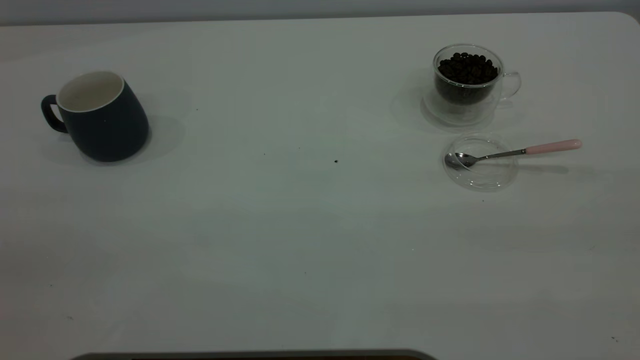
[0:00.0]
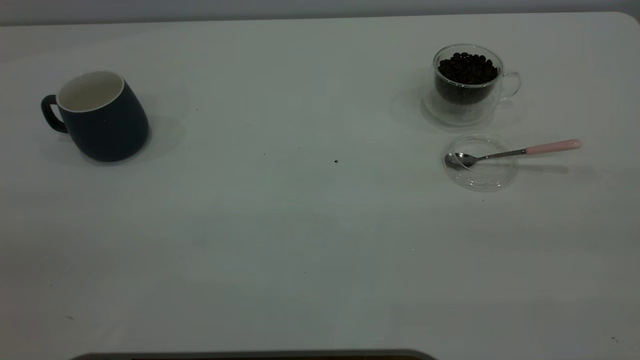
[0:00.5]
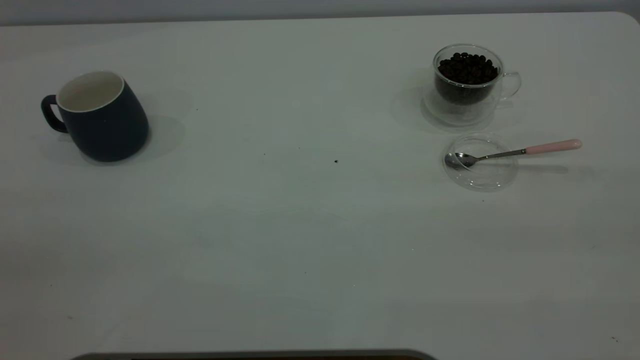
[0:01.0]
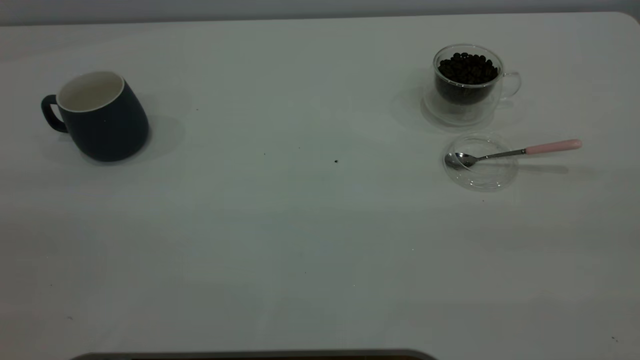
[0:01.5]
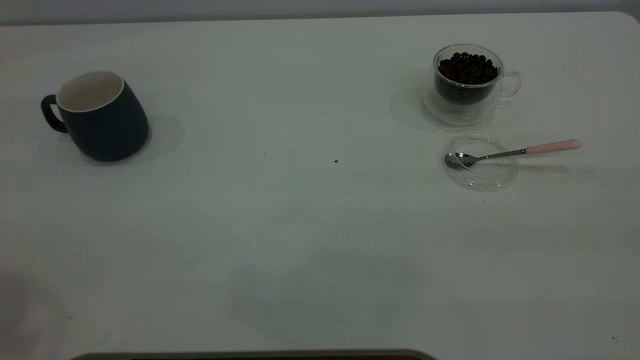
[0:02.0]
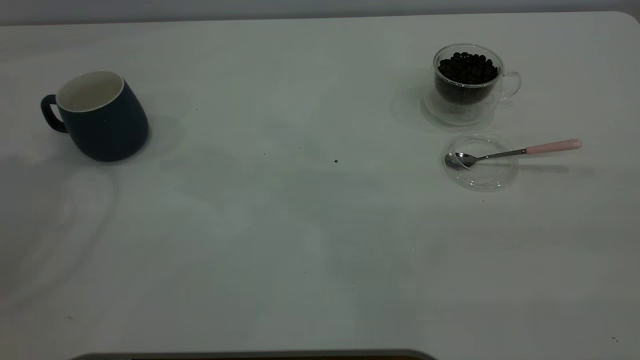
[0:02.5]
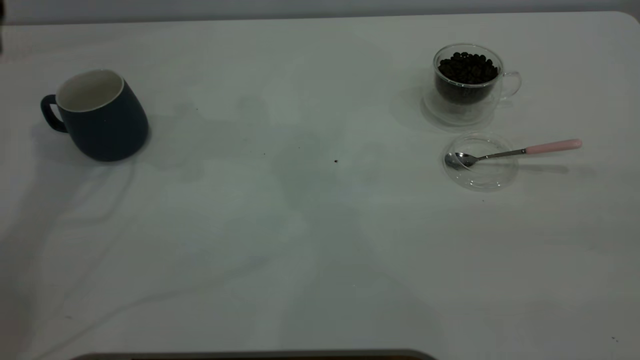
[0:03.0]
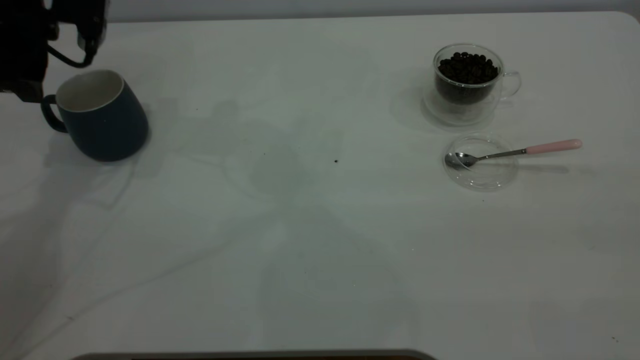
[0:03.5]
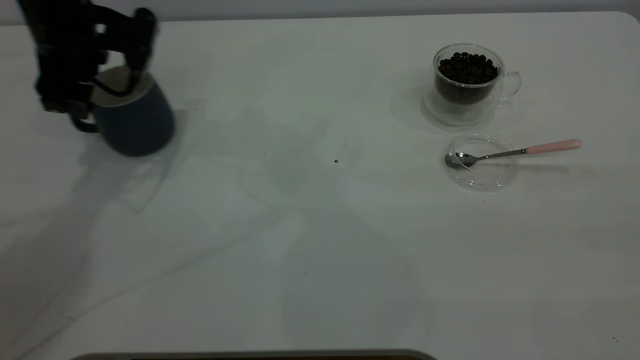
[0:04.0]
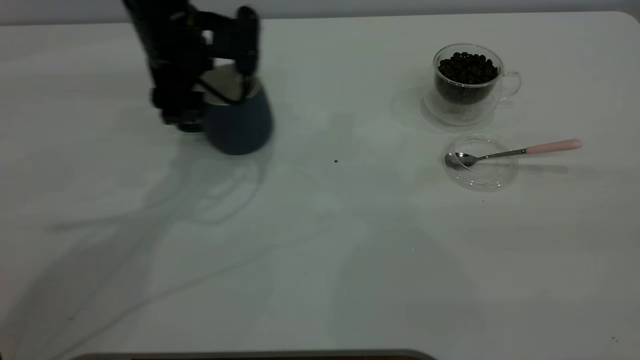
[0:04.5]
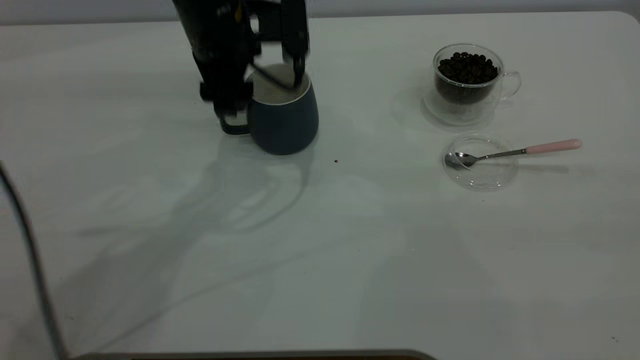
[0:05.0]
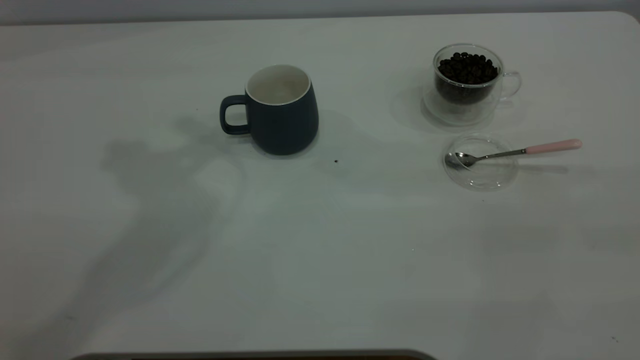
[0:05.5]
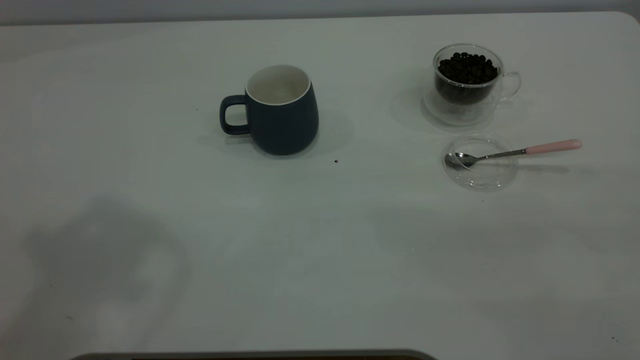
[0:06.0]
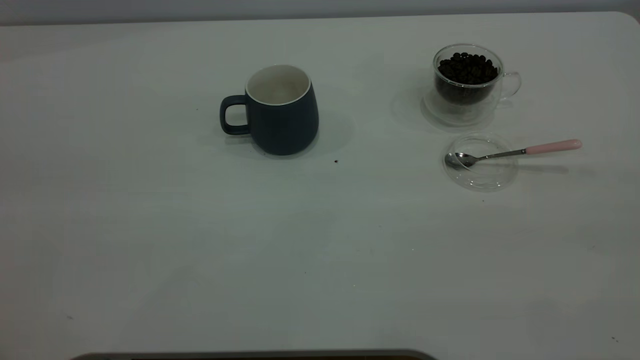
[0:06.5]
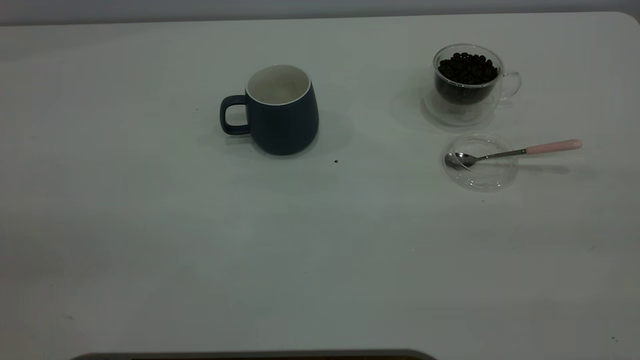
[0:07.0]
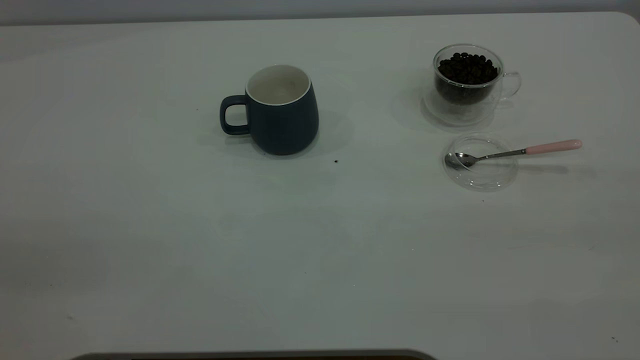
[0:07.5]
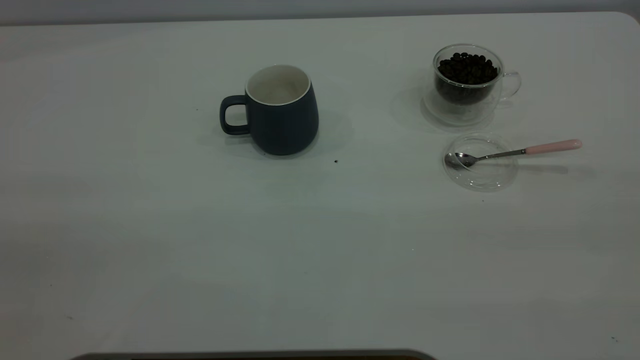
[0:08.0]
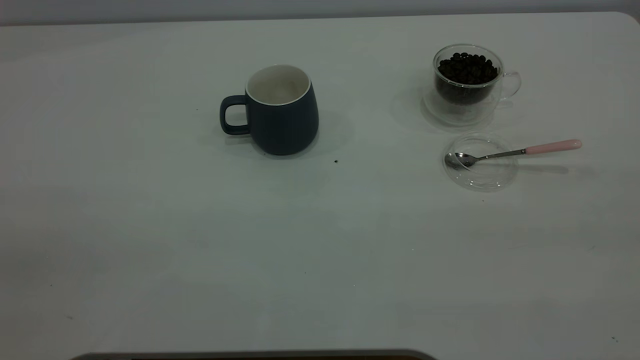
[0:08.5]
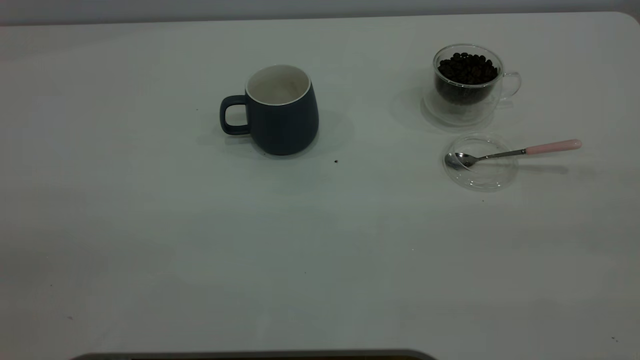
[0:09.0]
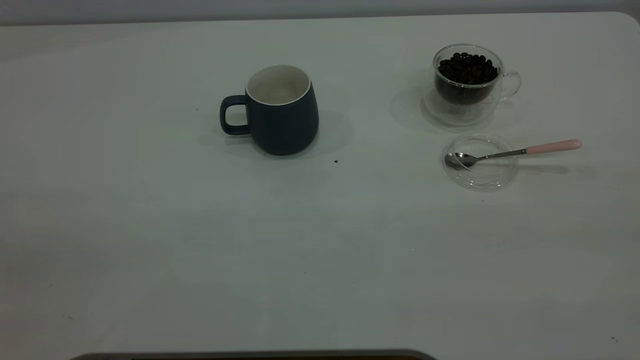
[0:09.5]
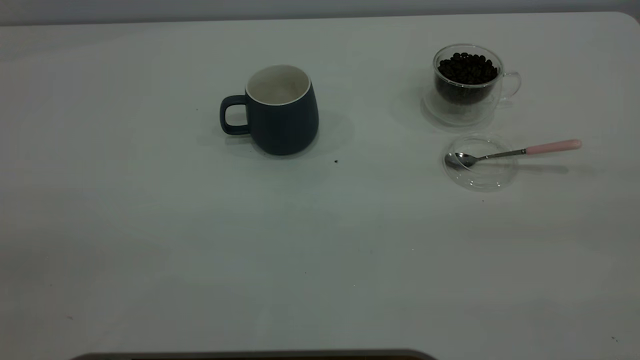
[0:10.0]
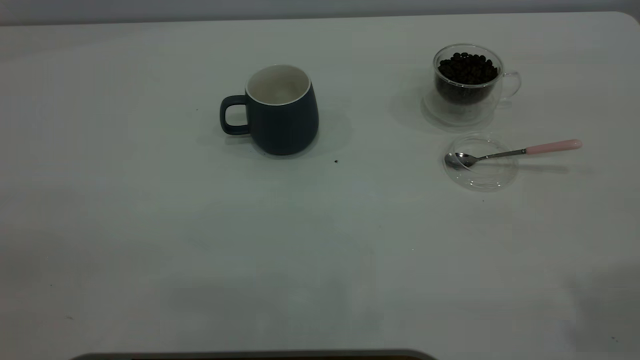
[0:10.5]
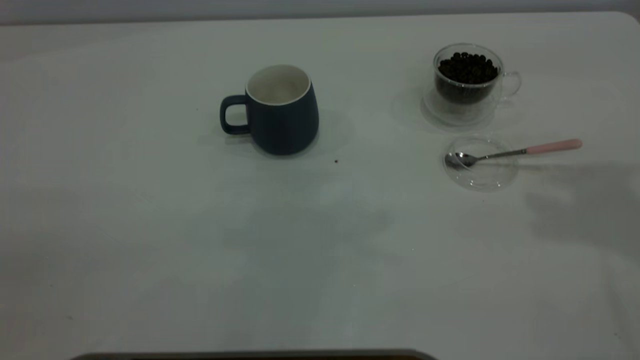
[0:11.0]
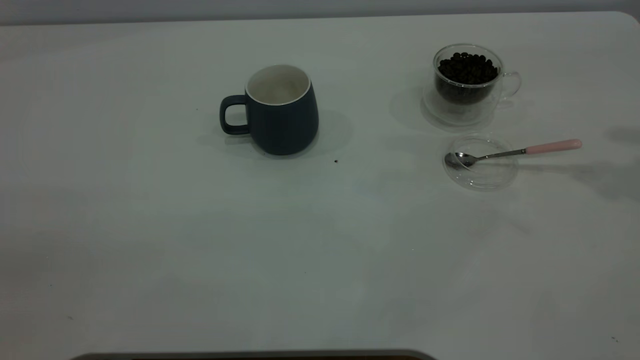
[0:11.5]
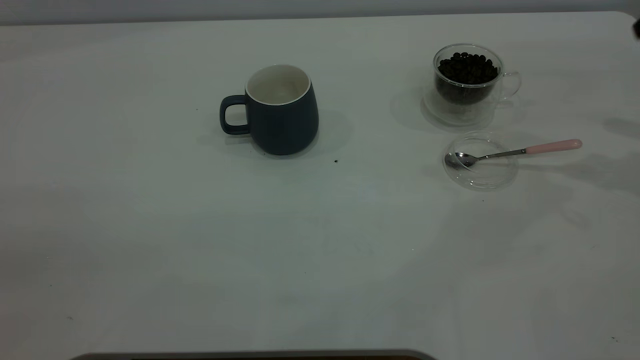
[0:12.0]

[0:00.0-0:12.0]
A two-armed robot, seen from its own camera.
Task of the whole recording: the left gripper place the grey cup in the center of the table, the right gripper take the pink spoon from the cup lid and scoop out the coffee beans from the coffee cup and put them into the grey cup, the right gripper put the spoon back into the cup lid.
Step, 0:00.0 to 0:05.0: Move the cup to the center of view.
0:02.0 to 0:04.0: The left gripper shifts about 40 cm downward and forward.
0:04.0 to 0:06.0: The left gripper goes some 40 cm upward and backward.

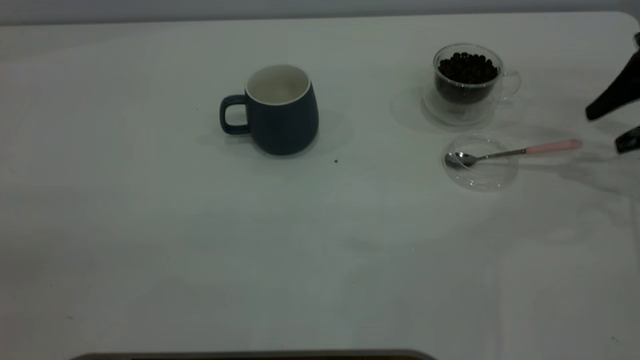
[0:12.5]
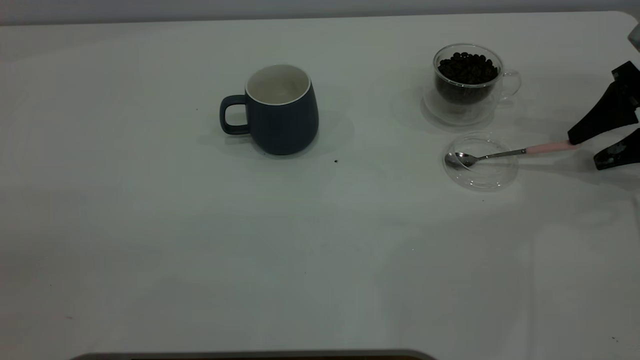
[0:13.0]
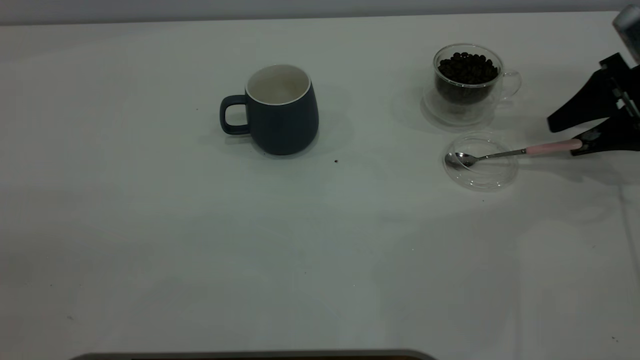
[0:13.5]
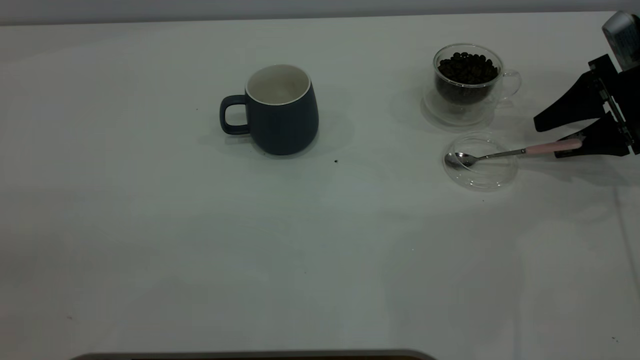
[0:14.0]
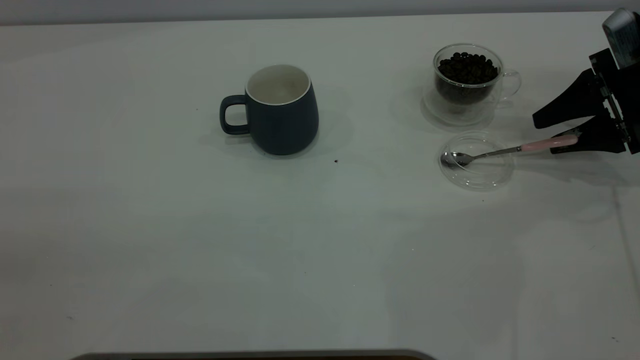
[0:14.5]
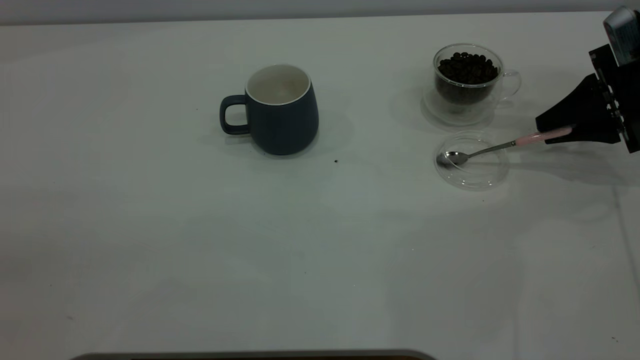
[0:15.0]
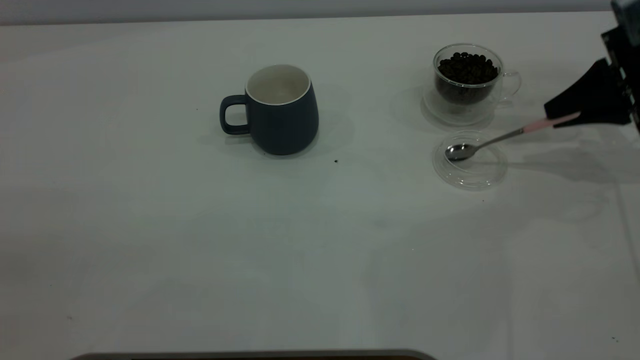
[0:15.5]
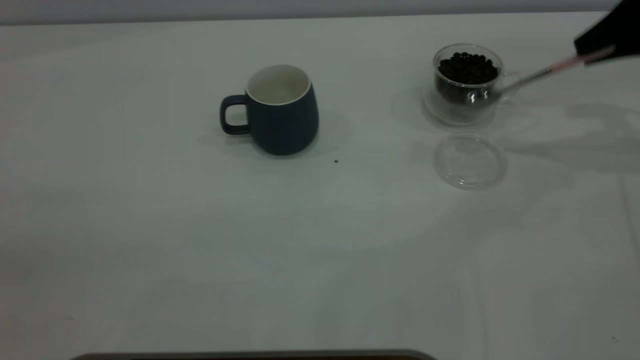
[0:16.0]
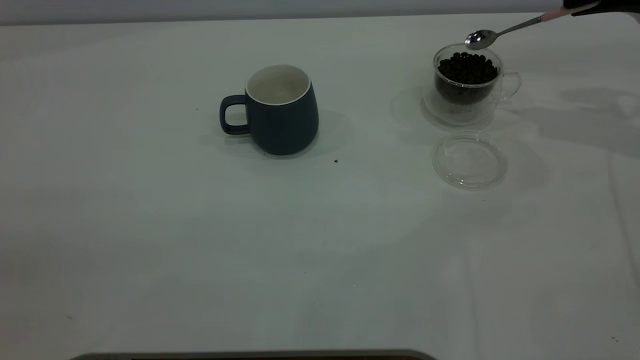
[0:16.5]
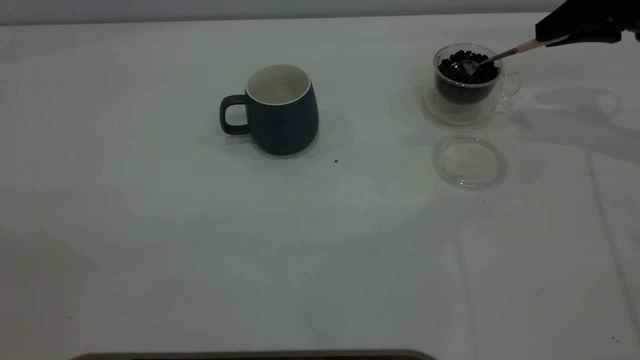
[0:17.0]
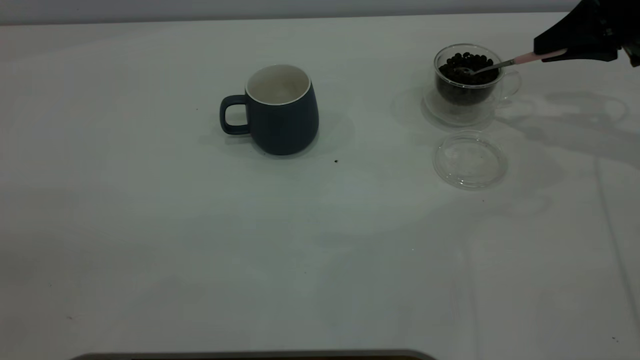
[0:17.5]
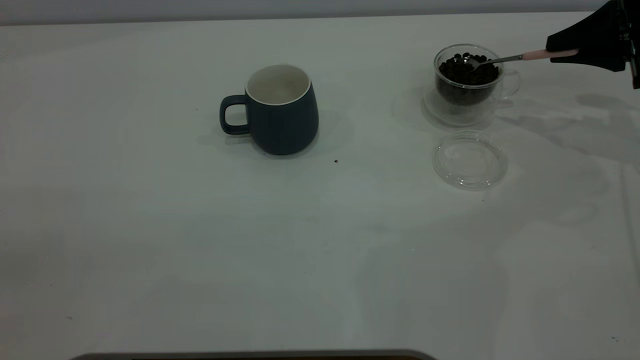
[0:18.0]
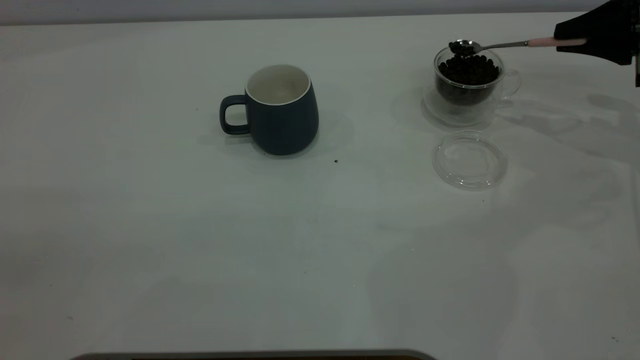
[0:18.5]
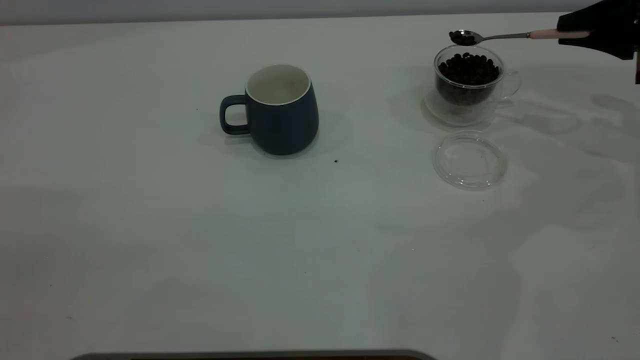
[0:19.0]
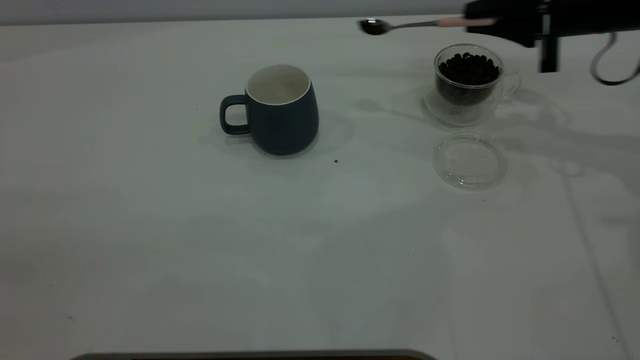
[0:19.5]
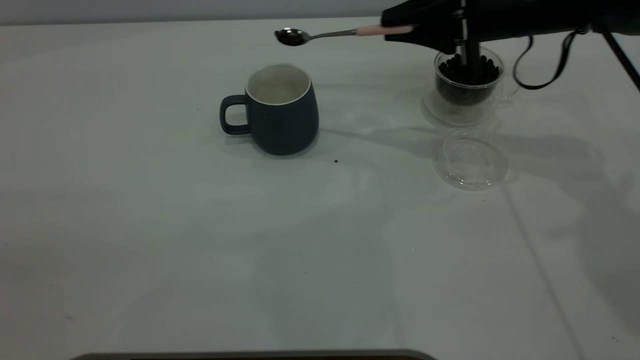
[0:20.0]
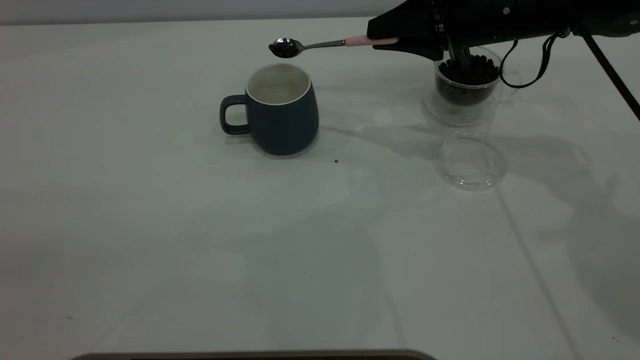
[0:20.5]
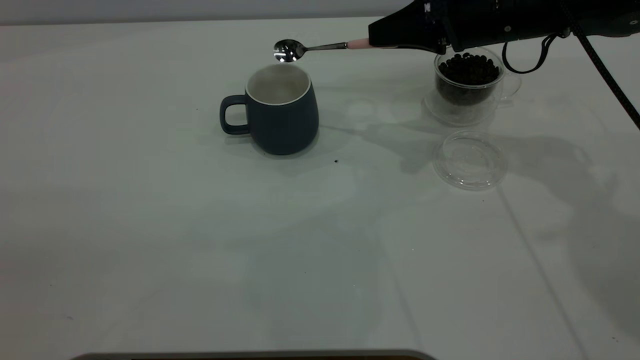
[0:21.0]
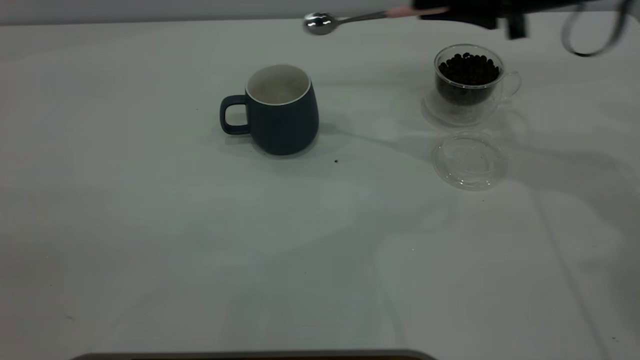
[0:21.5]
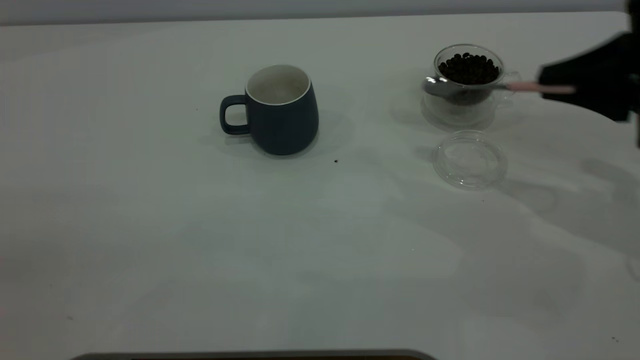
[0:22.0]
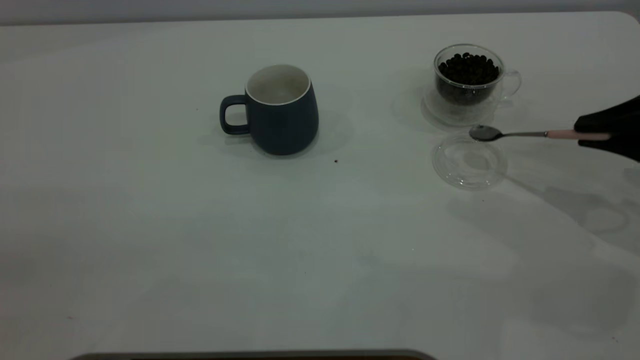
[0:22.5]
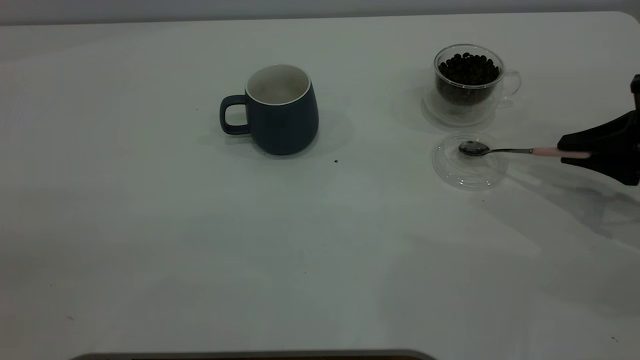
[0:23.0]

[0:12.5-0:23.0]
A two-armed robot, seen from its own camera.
Task of the whole recording: the left gripper place the grey cup in the center of the table, the right gripper take the pink spoon from the cup lid and scoop out the coffee beans from the coffee cup and put them into the grey cup, the right gripper put the spoon back into the cup lid.
Step, 0:12.5 to 0:15.5: Pick up the spoon.
Step, 0:16.0 to 0:21.0: Scoop a spoonful of beans into the cup.
0:12.5 to 0:14.5: The right gripper moves about 5 cm.
0:14.5 to 0:16.5: The right gripper moves upward, roughly 10 cm, and closes its fingers.
0:16.5 to 0:19.0: The right gripper is displaced downward by about 5 cm.
0:19.0 to 0:21.0: The right gripper heads to the left, covering some 20 cm.
0:21.0 to 0:23.0: The right gripper heads to the right and backward, covering roughly 20 cm.
